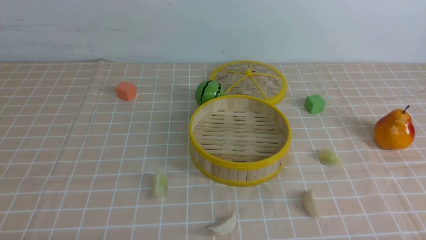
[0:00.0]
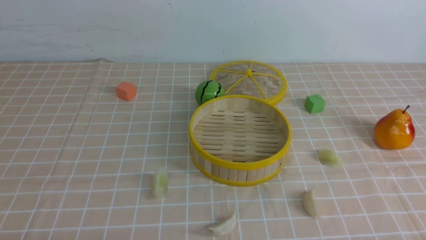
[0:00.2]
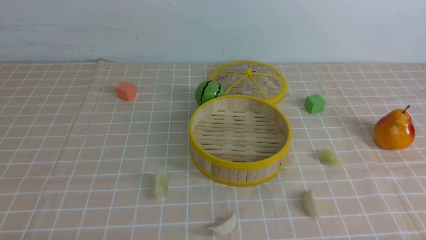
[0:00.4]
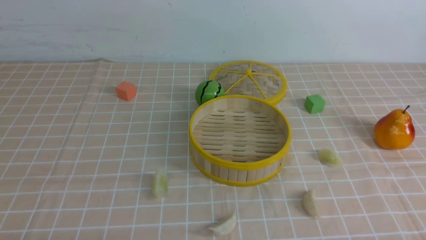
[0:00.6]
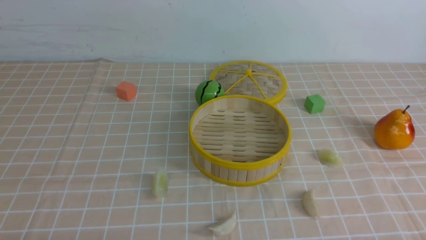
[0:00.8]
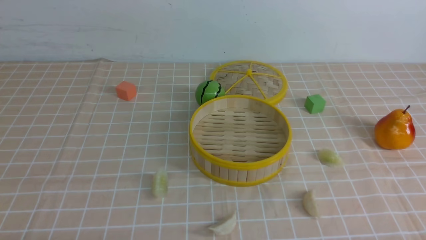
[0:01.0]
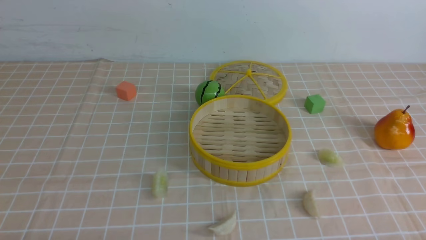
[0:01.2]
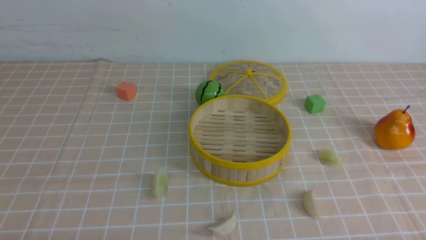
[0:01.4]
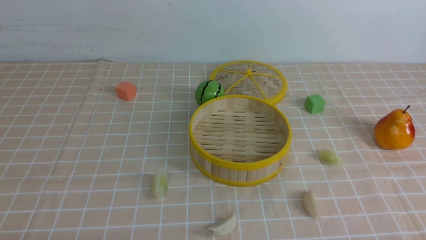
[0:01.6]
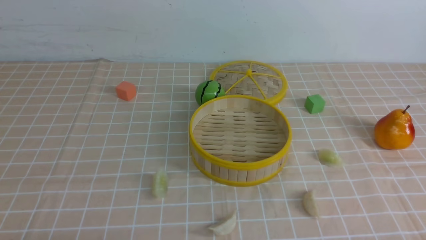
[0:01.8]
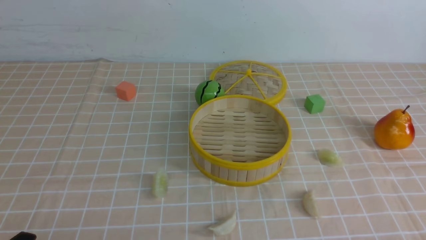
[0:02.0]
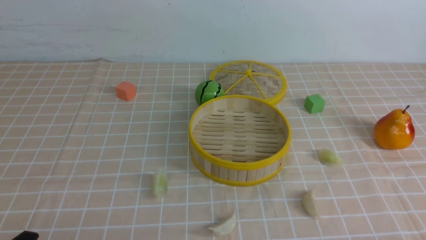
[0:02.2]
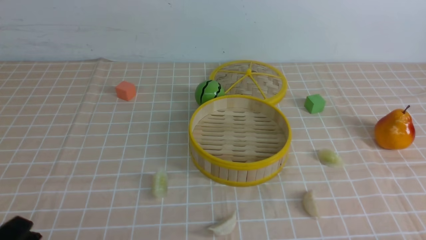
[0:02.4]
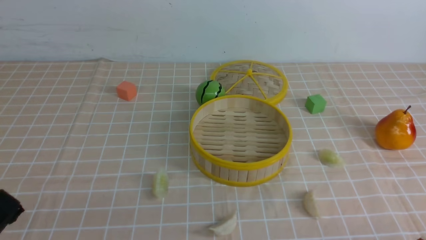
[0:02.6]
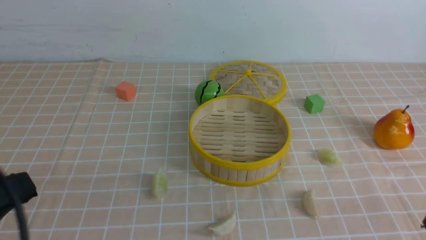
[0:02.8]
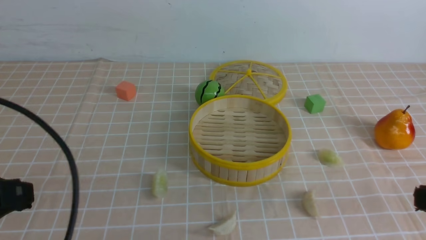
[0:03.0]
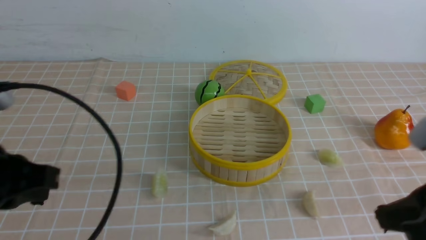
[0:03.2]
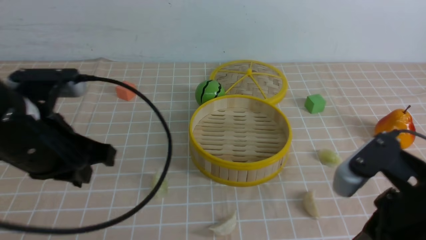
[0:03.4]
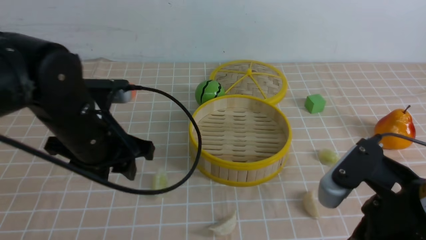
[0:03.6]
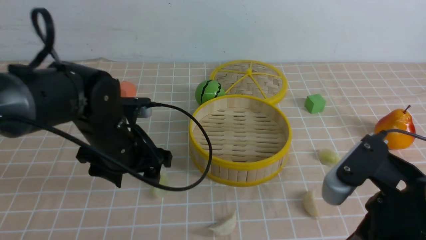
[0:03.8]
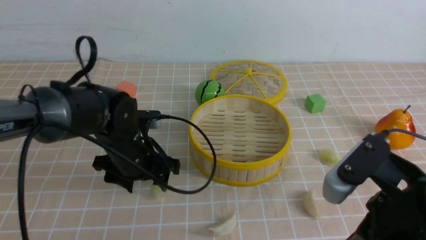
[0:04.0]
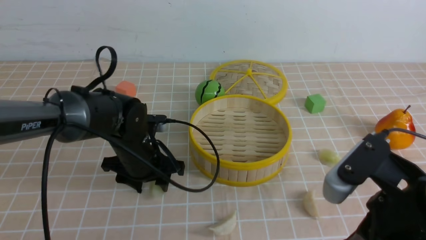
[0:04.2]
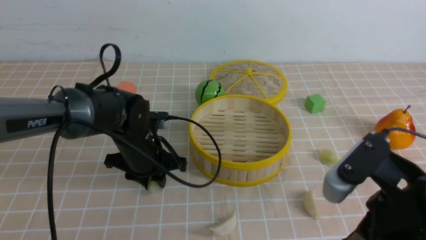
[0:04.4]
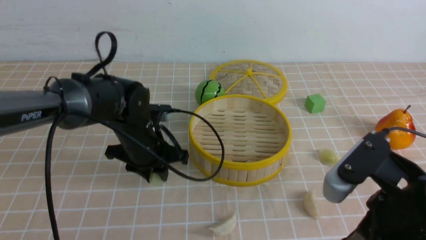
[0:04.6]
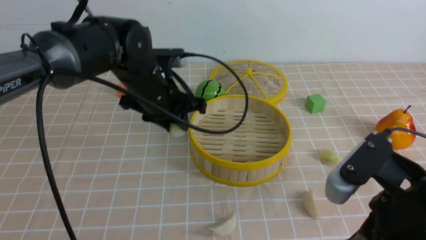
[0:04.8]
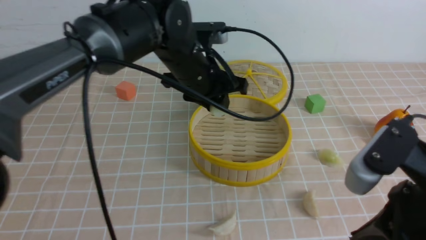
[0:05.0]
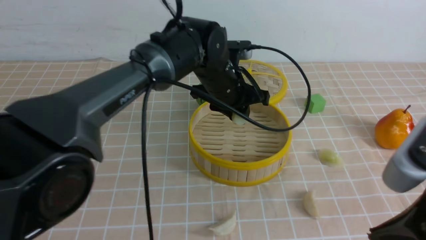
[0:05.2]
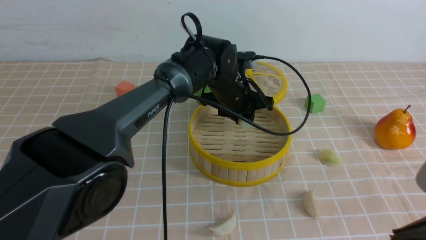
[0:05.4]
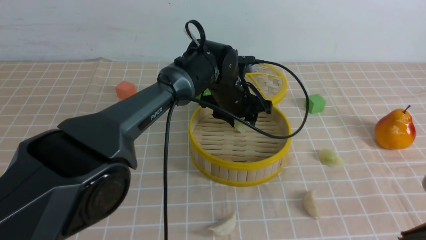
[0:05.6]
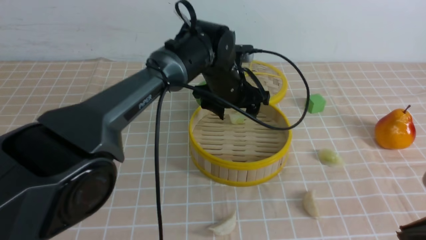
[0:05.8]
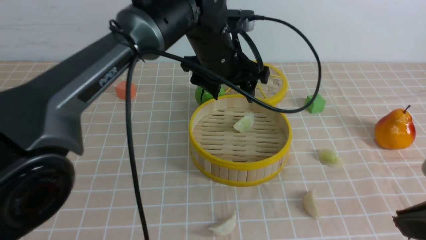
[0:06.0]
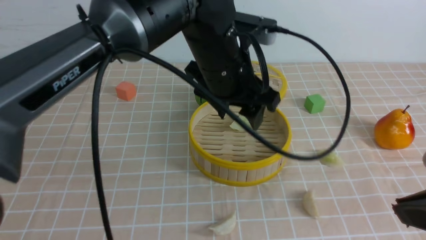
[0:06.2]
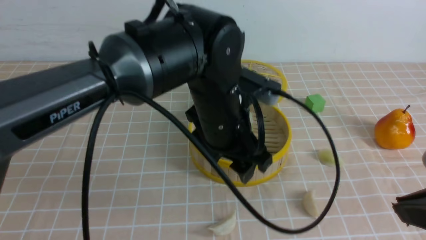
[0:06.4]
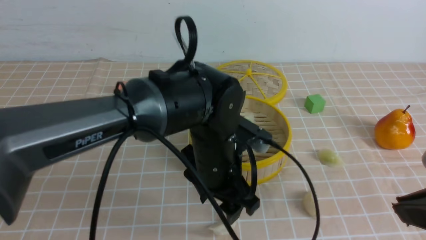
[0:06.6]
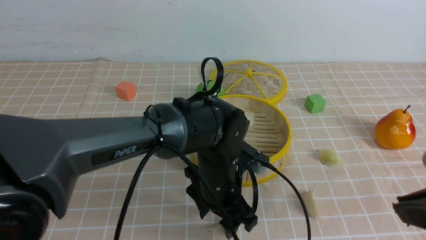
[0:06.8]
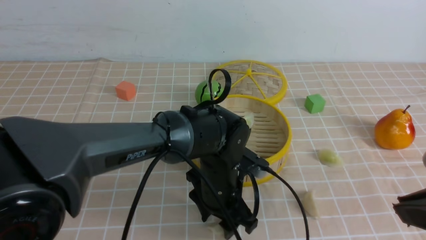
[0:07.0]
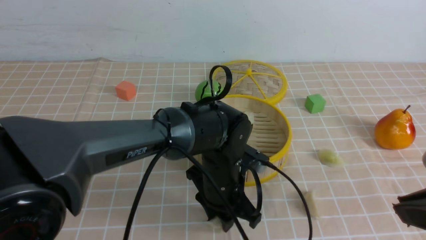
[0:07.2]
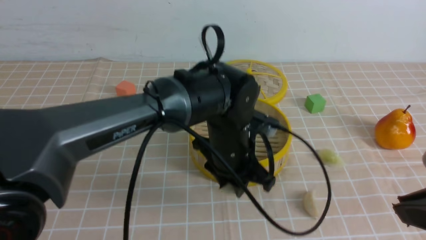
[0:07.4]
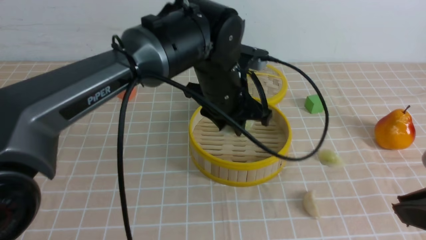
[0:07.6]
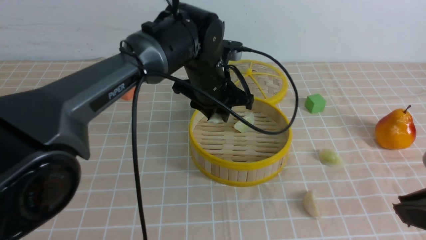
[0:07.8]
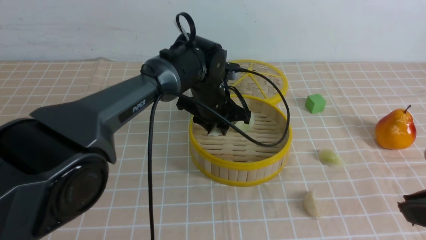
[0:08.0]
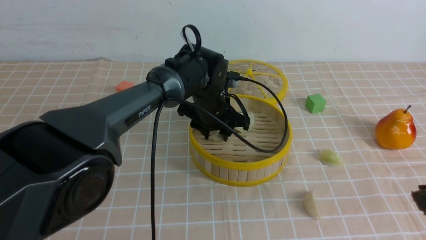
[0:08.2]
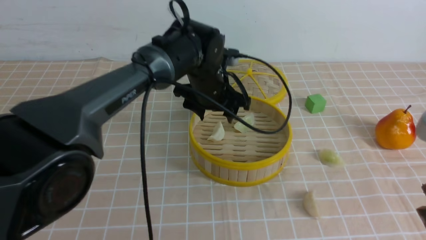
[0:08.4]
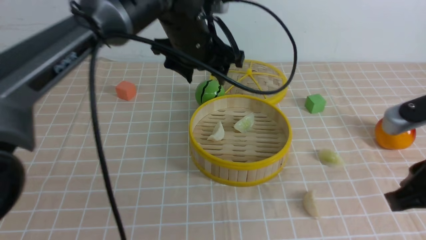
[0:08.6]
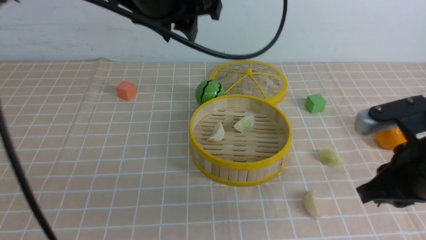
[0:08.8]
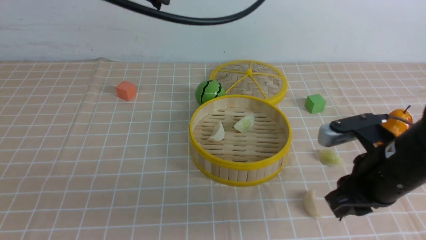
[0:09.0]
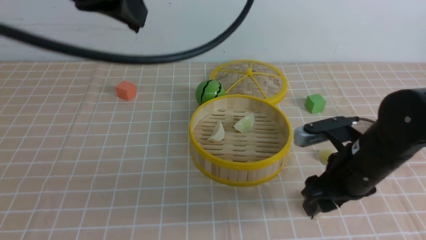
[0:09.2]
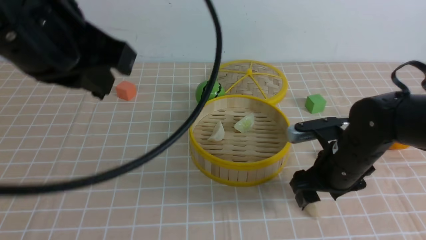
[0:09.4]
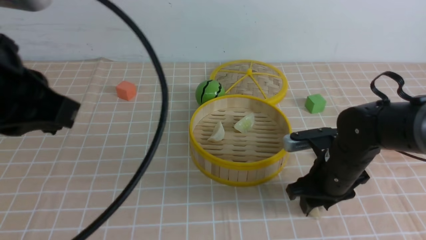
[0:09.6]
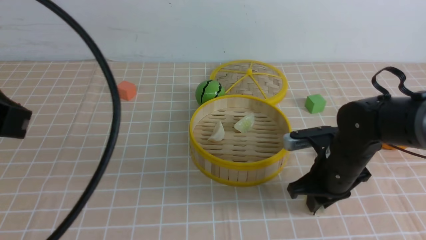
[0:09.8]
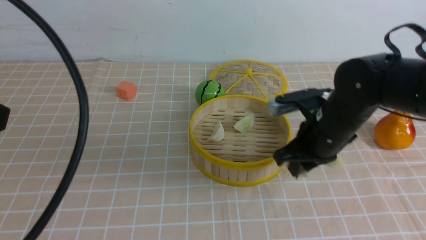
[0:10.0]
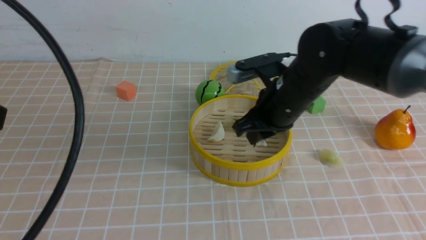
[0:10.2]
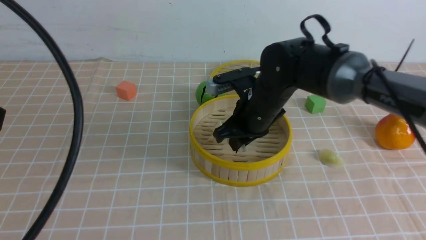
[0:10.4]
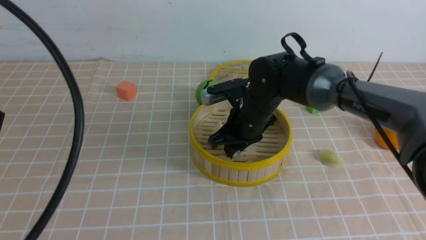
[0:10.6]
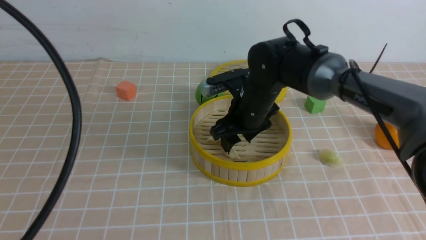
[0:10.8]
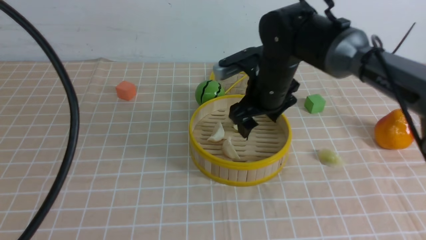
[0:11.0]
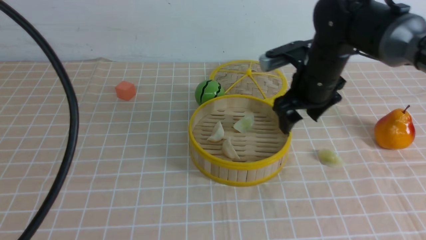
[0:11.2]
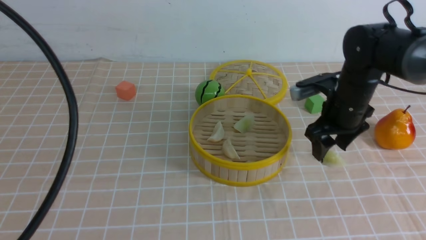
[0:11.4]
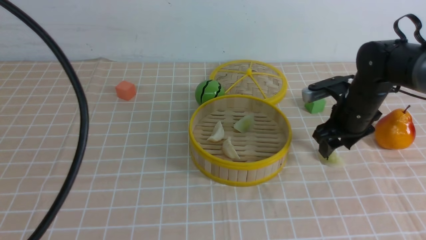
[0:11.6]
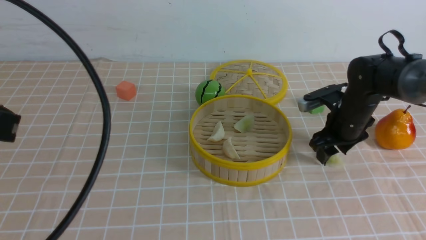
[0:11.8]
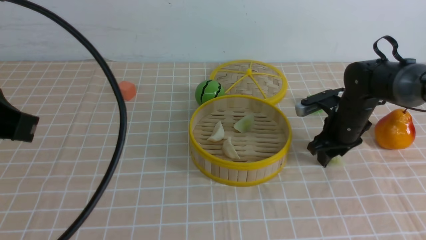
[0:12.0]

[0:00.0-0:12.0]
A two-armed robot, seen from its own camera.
Task of the whole recording: put the dumplings into the steamer on the table with the brown tablecloth.
Step, 0:00.0 to 0:04.4: use the left arm to grab a dumpling.
Step, 0:04.6 to 0:05.8: use the left arm to put the dumpling into the steamer.
Step, 0:06.0 to 0:07.0: use the left arm to grab a dumpling.
Step, 0:07.2 to 0:08.4: use the left arm to put the dumpling into the steamer.
Step, 0:08.6 to 0:09.6: use the right arm to grab a dumpling.
Step, 0:10.0 to 0:10.8: use the right arm to put the dumpling into the steamer.
Step, 0:11.0 to 0:11.8: use the right arm to grab a dumpling.
0:01.6 to 0:03.0: The left gripper shifts some 15 cm upward and forward, and closes up.
0:03.0 to 0:04.4: The left gripper moves forward, downward and to the right, some 30 cm, and opens up; the right gripper heads to the left, covering roughly 10 cm.
0:04.4 to 0:06.0: The left gripper goes up and down, approximately 15 cm each way, reversing 2 times, and opens its fingers, while the right gripper moves upward, roughly 5 cm.
0:06.0 to 0:07.6: The left gripper travels downward and back again, roughly 15 cm each way, and closes.
0:07.6 to 0:09.0: The left gripper heads upward and to the left, covering approximately 25 cm, and opens and closes again. The right gripper heads forward and downward, covering approximately 15 cm.
0:09.0 to 0:10.4: The right gripper goes roughly 20 cm forward and to the left, and opens, then closes again; the left gripper goes approximately 20 cm backward and to the left.
0:10.4 to 0:12.0: The right gripper heads to the right, covering some 15 cm, and opens, then closes once more.

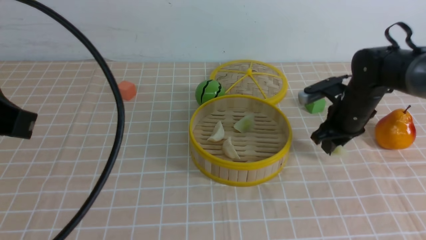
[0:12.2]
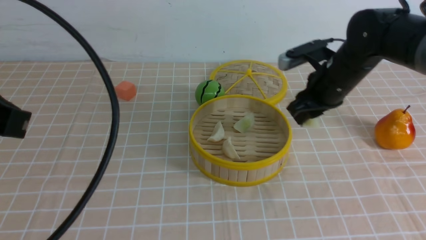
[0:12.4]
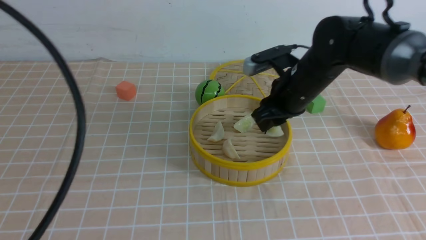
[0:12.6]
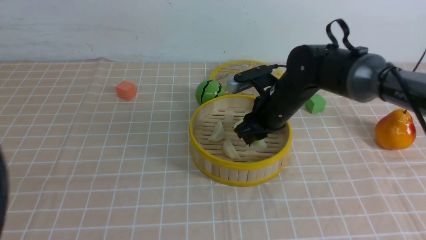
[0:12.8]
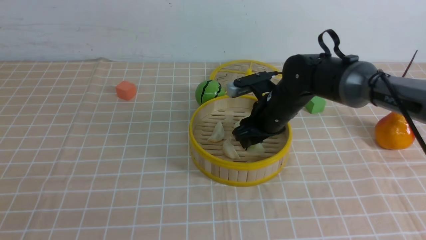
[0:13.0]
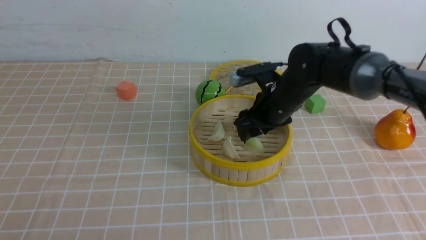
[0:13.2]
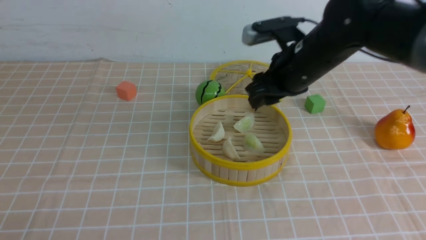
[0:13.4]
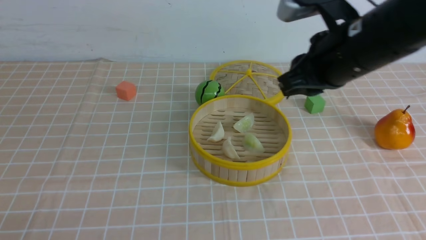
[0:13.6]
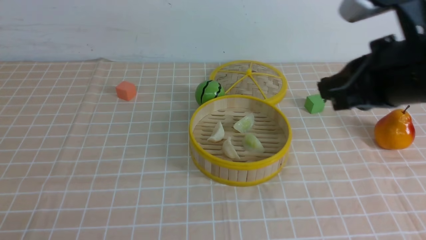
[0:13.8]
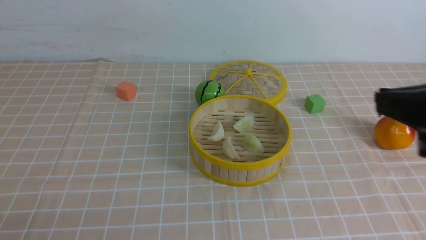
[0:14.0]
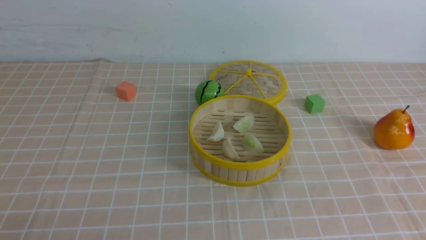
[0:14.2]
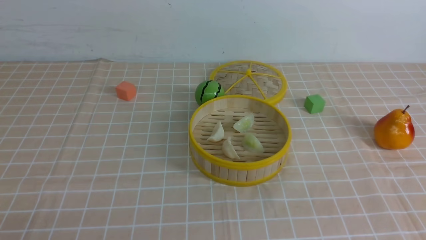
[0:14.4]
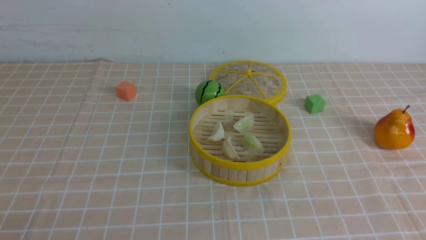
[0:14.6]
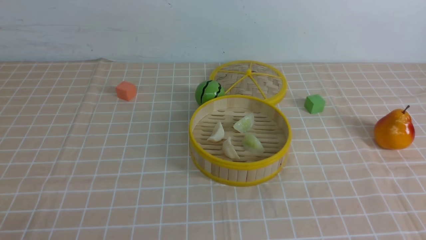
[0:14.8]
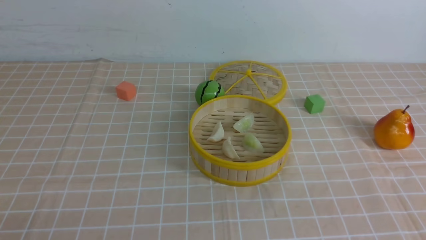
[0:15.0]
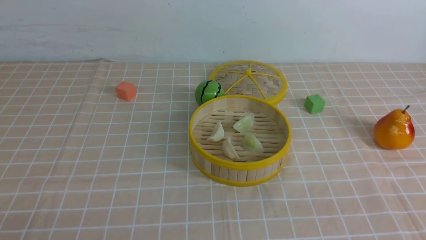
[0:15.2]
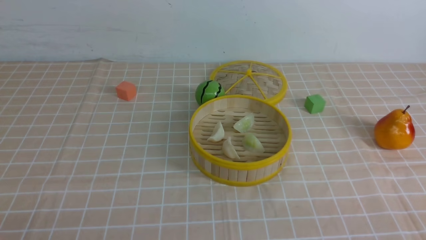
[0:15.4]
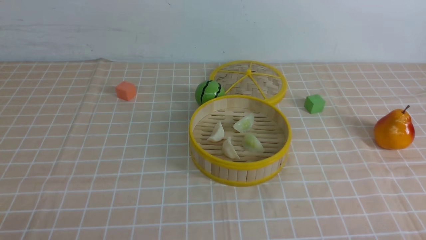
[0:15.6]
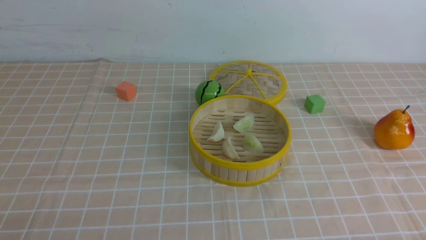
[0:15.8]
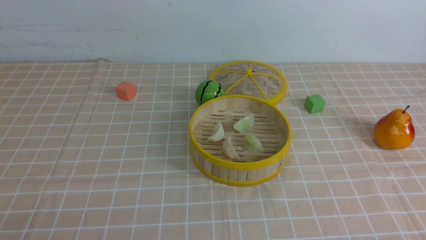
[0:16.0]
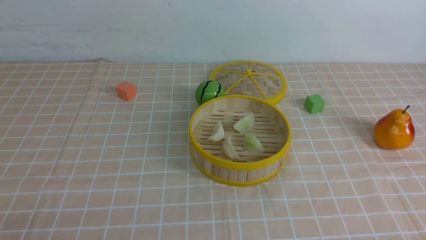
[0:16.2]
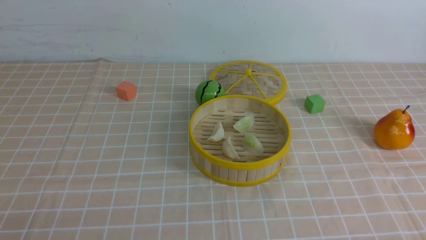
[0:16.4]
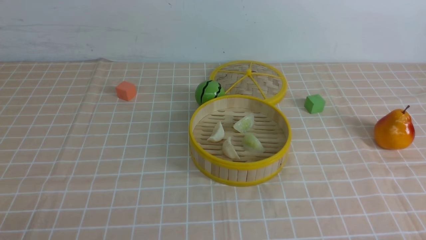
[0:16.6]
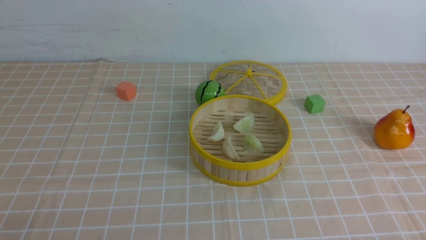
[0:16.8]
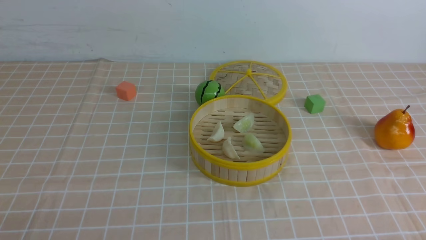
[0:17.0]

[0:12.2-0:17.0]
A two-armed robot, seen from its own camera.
Task of the whole recording: put the dumplings into the steamer on the table with the brown tablecloth.
Step, 0:12.2 to 0:13.2: use the right arm to put the dumpling into the steamer.
0:12.2 to 0:13.8: The left gripper is displaced downward, backward and to the left by approximately 20 cm, while the right gripper heads backward and upward, covering roughly 30 cm, and closes its fingers.
0:13.8 to 0:15.4: The right gripper goes some 25 cm downward, backward and to the right.
